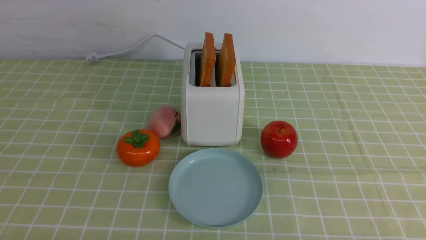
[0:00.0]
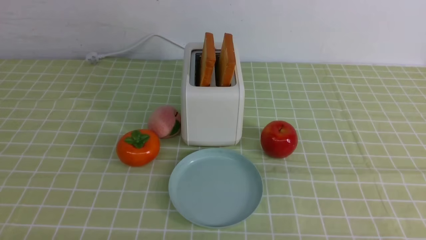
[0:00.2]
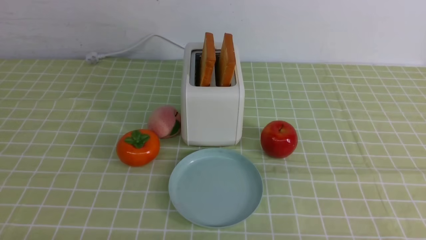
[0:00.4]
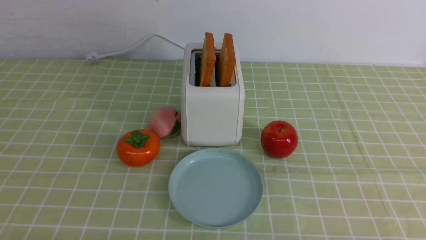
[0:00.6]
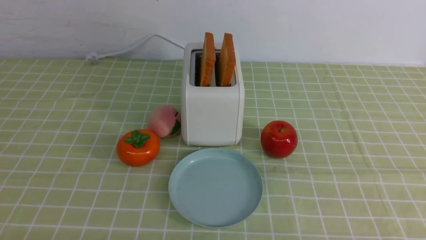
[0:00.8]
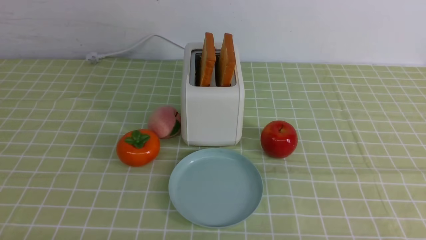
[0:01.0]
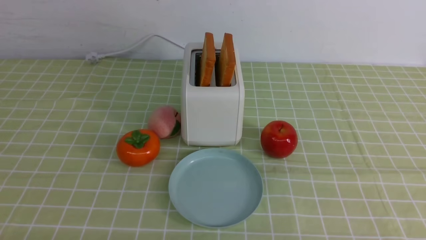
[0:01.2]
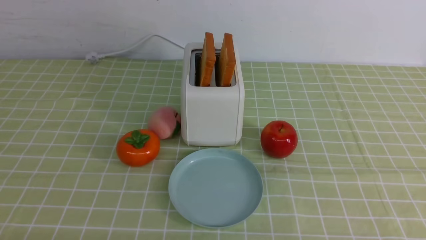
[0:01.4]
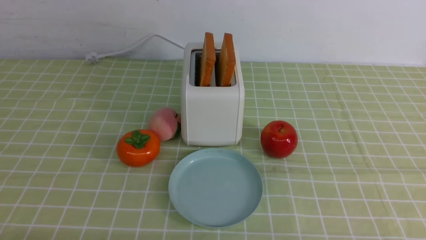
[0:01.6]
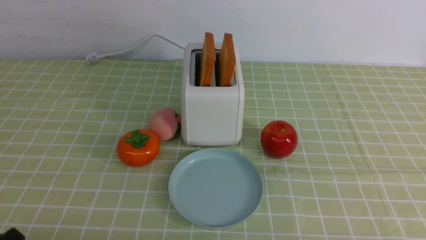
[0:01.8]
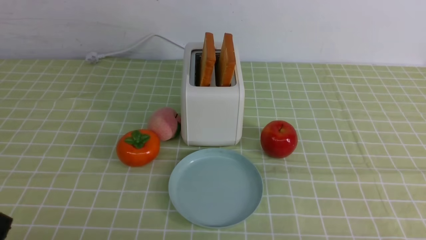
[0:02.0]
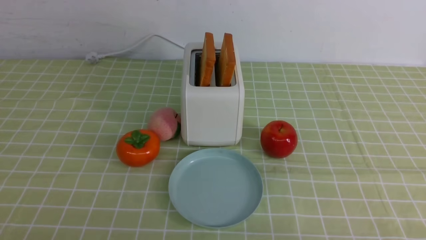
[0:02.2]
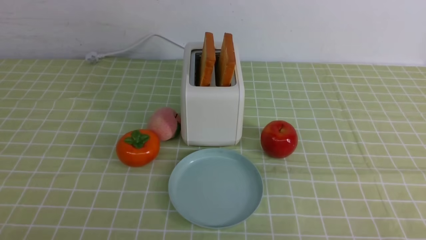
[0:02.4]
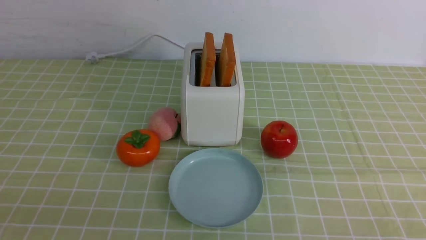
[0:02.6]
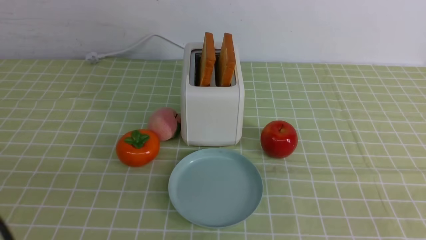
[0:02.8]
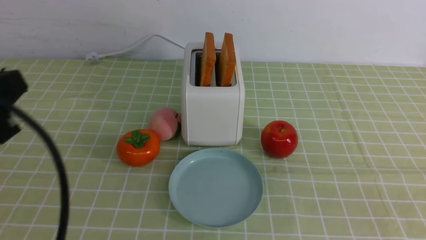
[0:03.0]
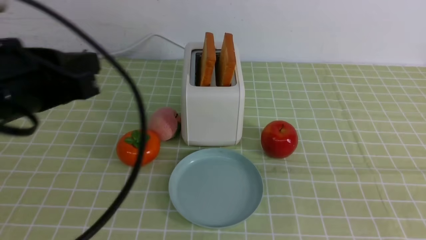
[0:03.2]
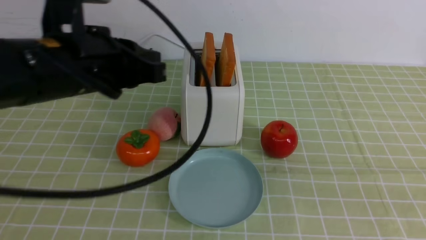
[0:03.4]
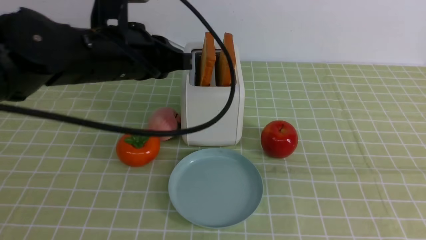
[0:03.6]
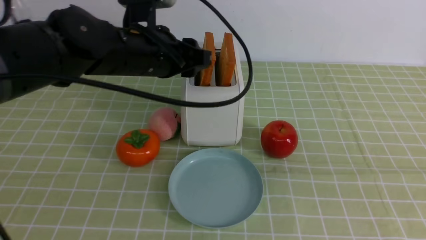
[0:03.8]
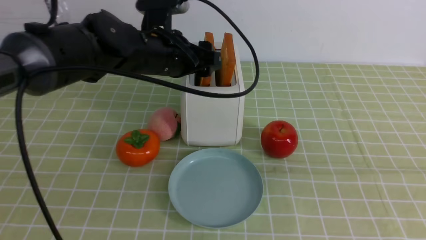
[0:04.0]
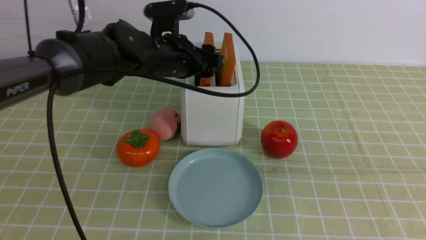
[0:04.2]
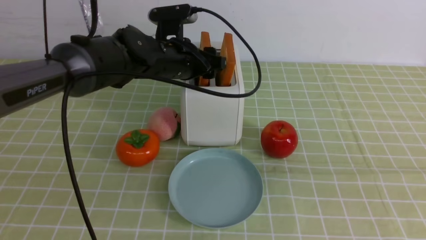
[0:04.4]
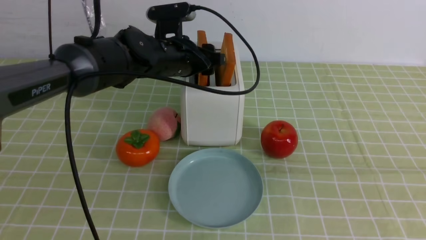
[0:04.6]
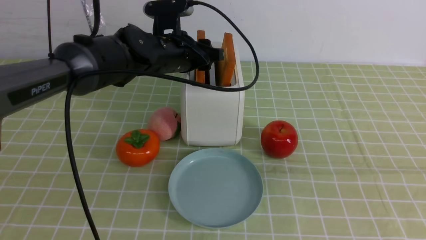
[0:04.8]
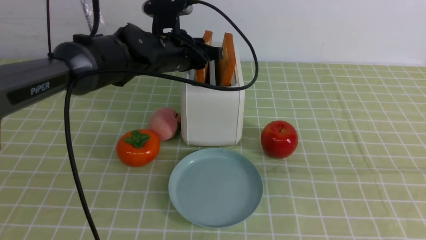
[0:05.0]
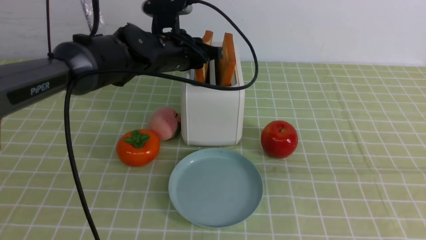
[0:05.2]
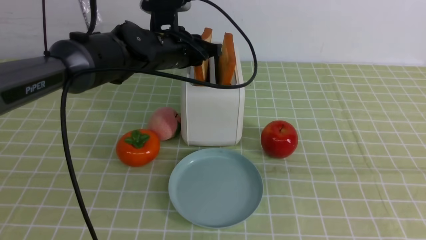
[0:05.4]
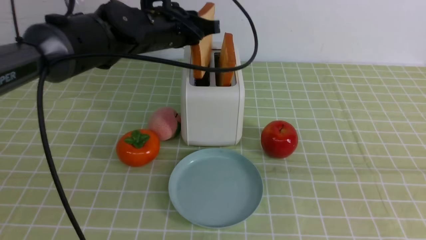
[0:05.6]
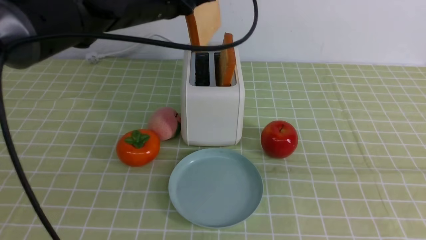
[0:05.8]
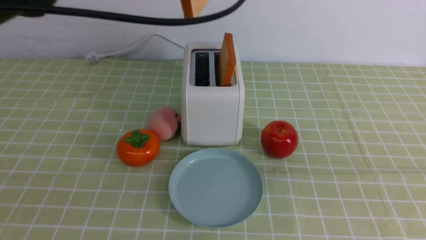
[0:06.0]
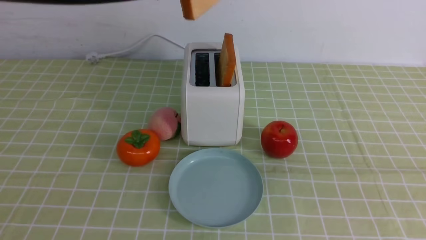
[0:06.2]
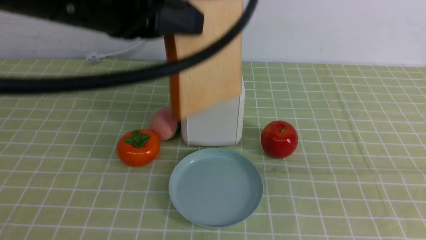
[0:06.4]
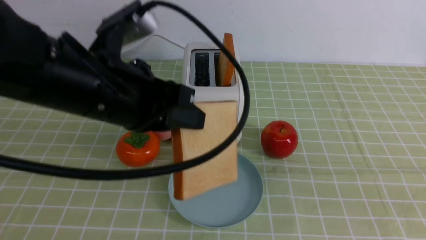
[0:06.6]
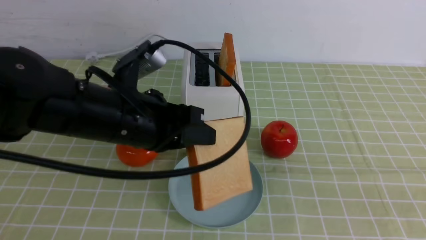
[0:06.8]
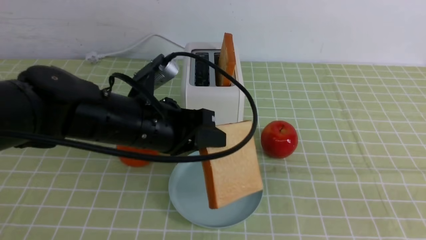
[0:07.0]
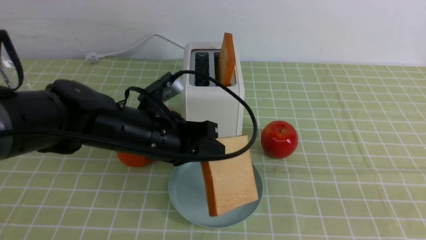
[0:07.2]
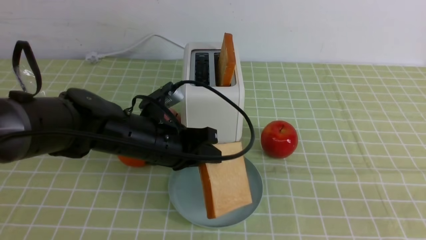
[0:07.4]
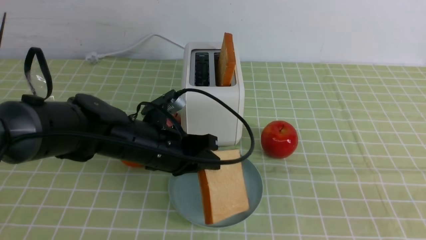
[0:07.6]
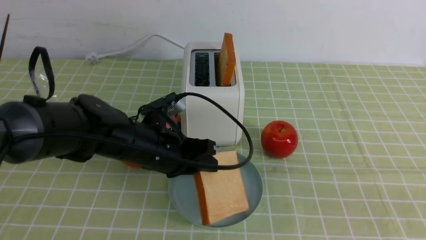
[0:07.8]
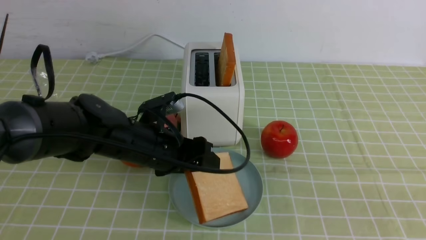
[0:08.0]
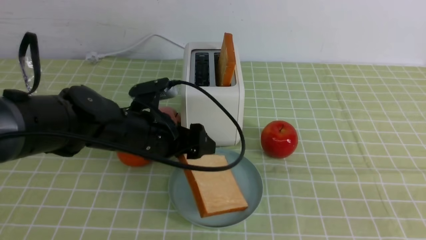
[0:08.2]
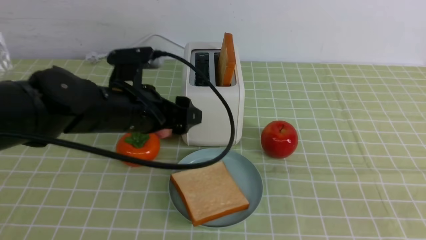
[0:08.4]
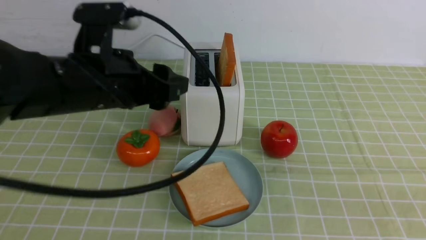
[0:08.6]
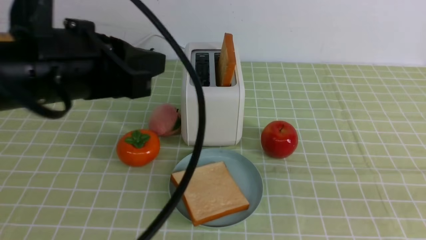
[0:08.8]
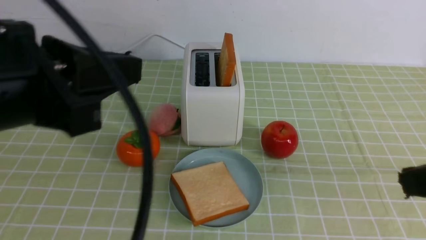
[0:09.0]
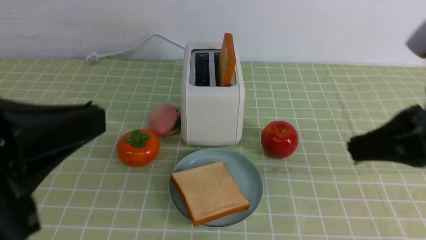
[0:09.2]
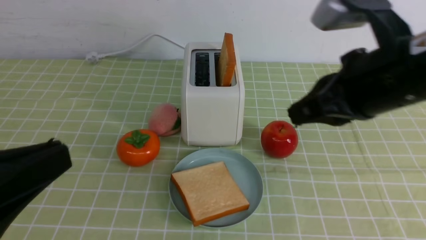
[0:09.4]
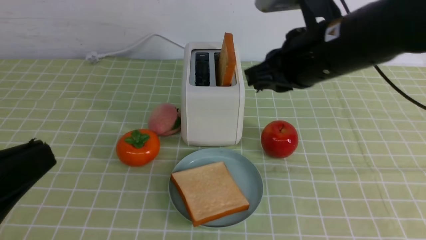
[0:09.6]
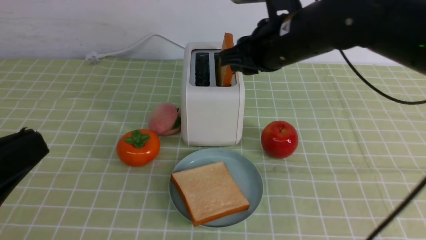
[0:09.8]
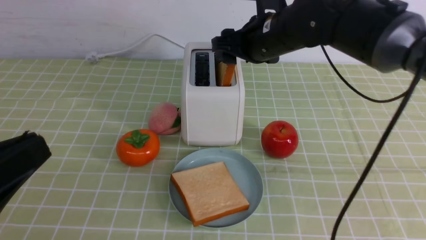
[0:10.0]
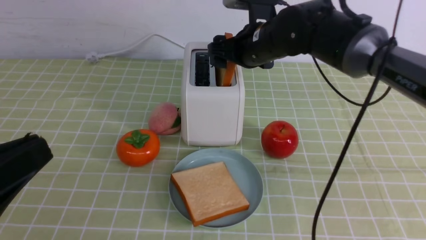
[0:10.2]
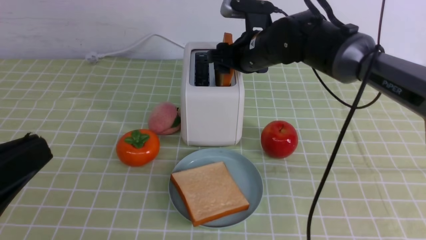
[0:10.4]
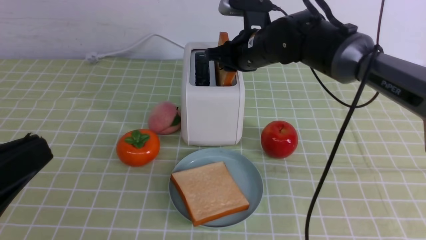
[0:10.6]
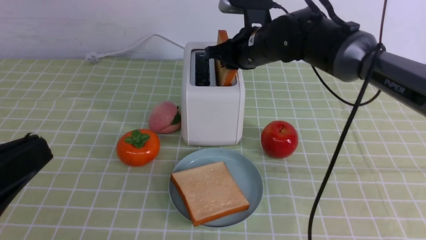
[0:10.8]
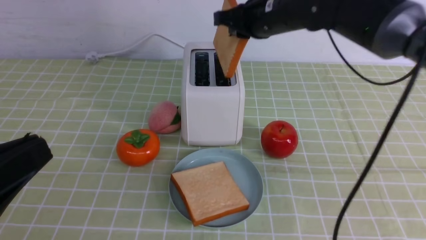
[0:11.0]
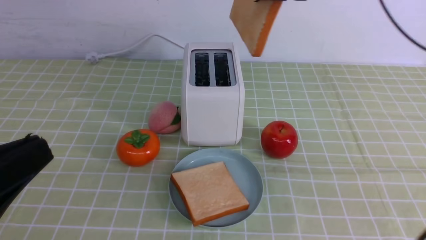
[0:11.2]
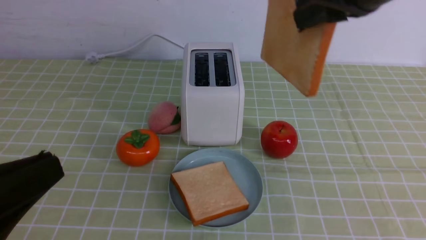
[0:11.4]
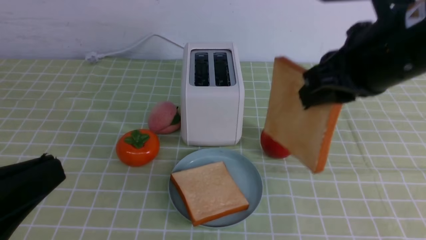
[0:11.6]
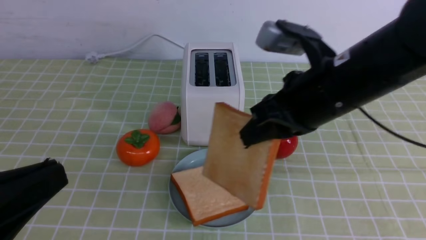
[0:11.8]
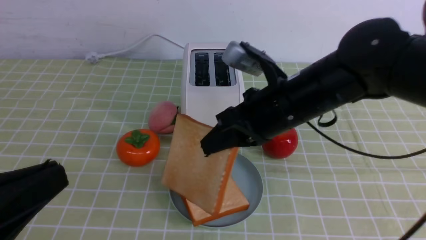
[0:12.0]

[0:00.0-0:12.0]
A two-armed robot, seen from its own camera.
Task of the whole recording: take toasted bread from bread machine on green coffee tablecloth place on plate.
Step, 0:00.0 to 0:05.6: use the left arm to take out a slice of bread.
Step, 0:05.8 to 0:08.2: use the left arm to put a slice of bread into the empty plate.
Step, 0:08.4 to 0:10.6: use the right arm to take out a slice of bread.
0:01.6 to 0:03.0: The left gripper travels upward by roughly 15 cm, and closes up.
0:03.0 to 0:04.4: The left gripper heads forward and to the right, covering some 35 cm, and opens up. The right gripper heads upward, covering some 10 cm.
0:04.4 to 0:06.0: The left gripper goes approximately 15 cm upward and backward, and closes up.
0:06.0 to 0:07.6: The left gripper is displaced downward by about 20 cm. The right gripper moves some 5 cm.
0:07.6 to 0:09.0: The left gripper travels upward, backward and to the left by some 25 cm, and opens, then closes again. Meanwhile the right gripper heads forward, covering some 5 cm.
0:09.0 to 0:10.4: The left gripper travels backward, downward and to the left by some 15 cm, while the right gripper heads forward and to the left, covering roughly 40 cm, and opens.
0:10.4 to 0:12.0: The right gripper travels backward by roughly 15 cm, and closes up.

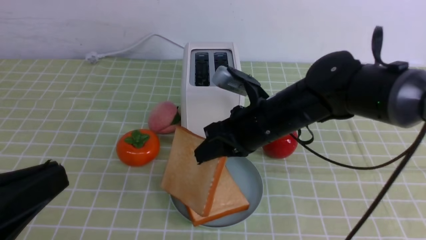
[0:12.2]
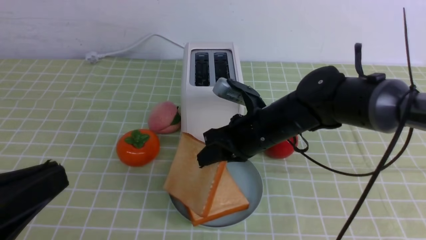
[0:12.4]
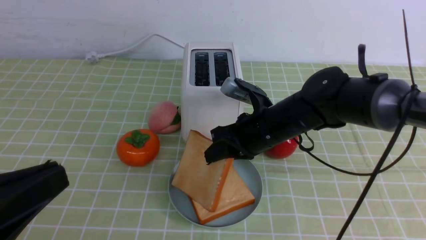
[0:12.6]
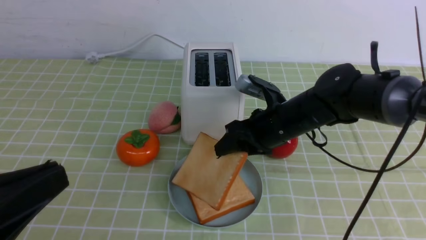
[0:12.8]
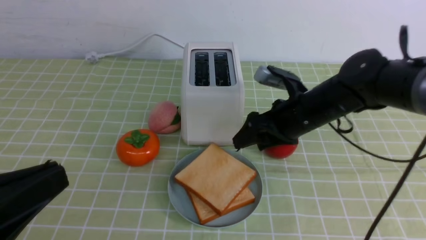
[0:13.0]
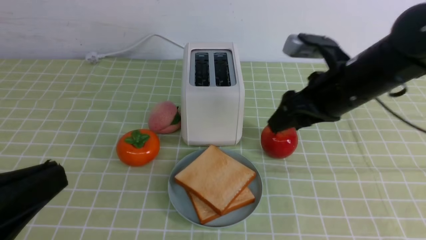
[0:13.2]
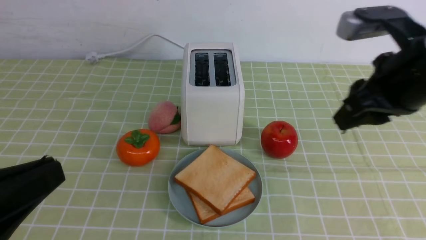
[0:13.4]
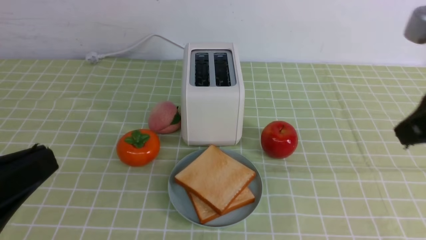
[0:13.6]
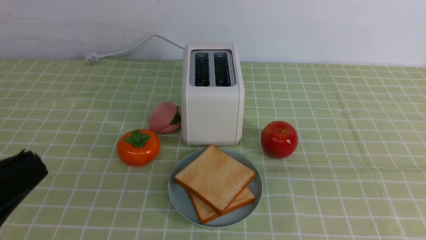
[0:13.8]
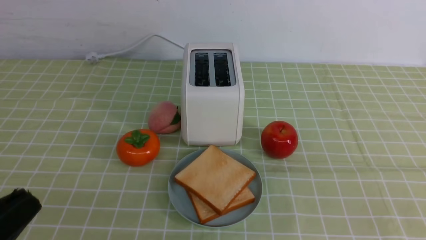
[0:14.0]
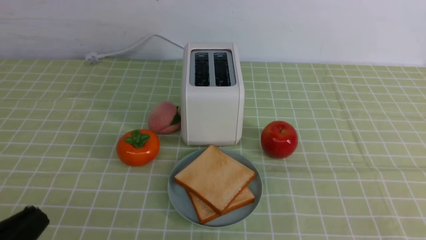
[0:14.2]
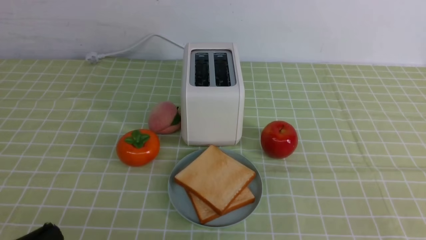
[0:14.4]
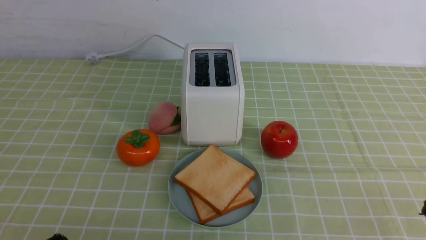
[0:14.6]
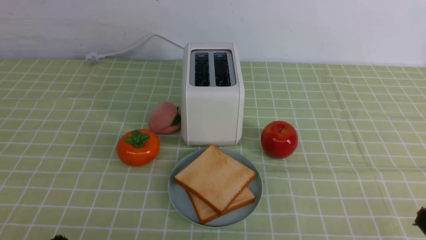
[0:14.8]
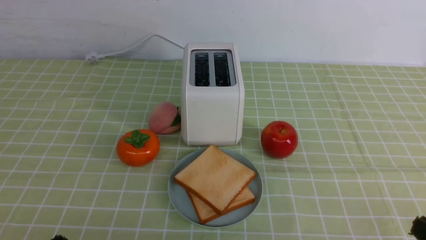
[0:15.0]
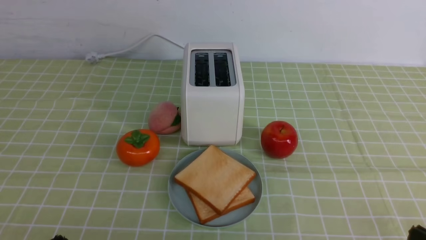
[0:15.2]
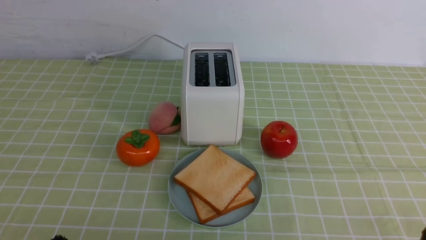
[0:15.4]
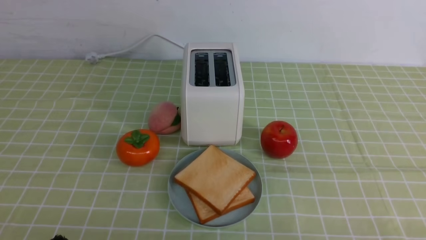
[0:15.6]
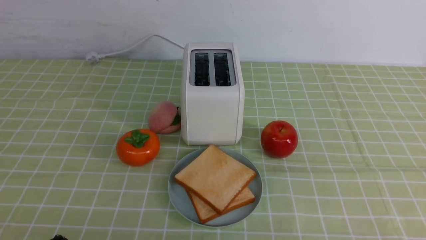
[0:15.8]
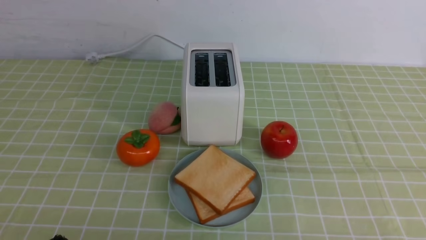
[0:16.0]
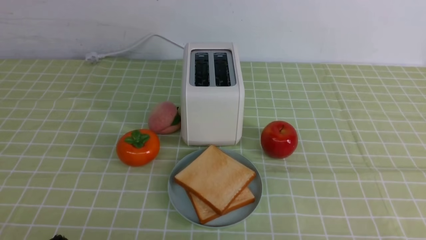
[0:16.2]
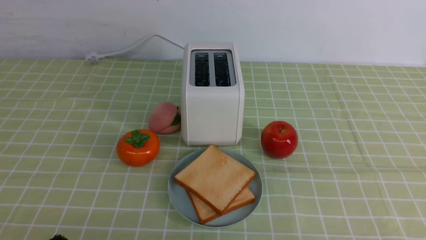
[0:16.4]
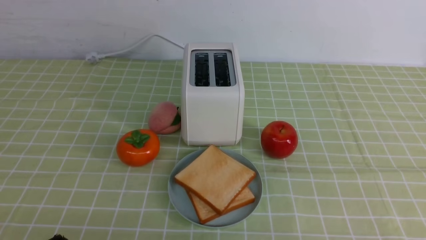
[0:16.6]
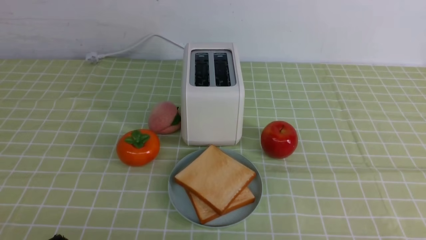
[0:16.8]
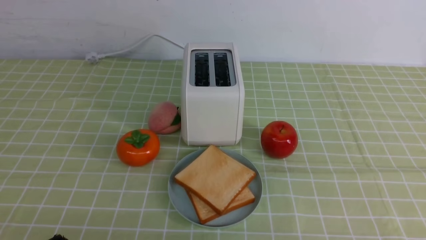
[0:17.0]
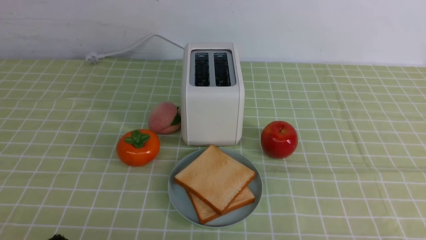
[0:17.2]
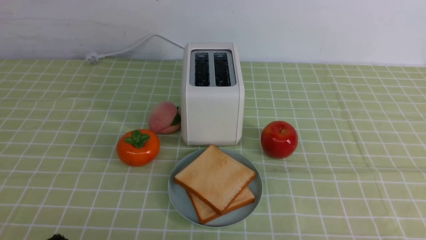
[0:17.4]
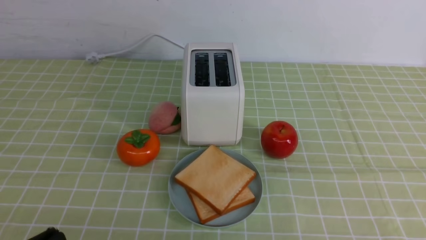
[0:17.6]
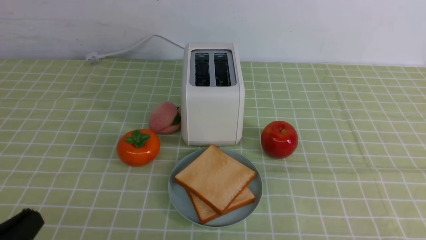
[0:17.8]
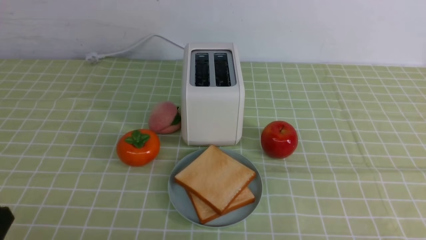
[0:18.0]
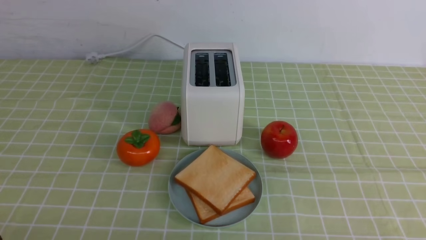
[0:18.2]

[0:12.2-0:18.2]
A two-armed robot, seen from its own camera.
Task of the whole recording: take toasted bread from bread machine on green coffee tablecloth place on plate.
0:12.2 to 0:13.8: The right gripper travels backward, to the right and upward by some 25 cm, and opens, then closes once more.
0:13.8 to 0:15.2: The left gripper heads downward, covering roughly 10 cm.
